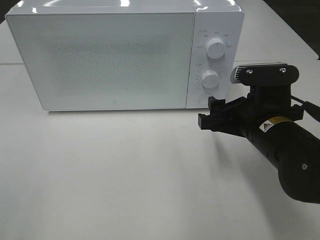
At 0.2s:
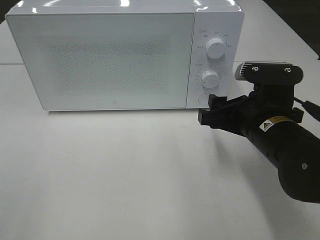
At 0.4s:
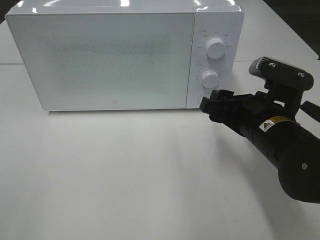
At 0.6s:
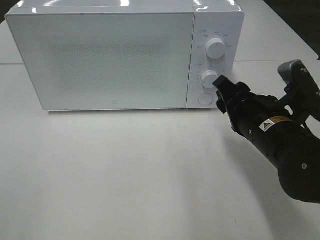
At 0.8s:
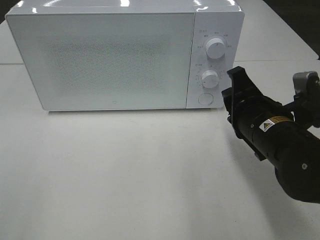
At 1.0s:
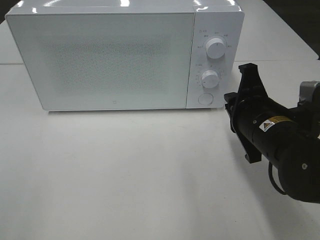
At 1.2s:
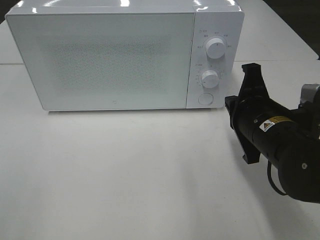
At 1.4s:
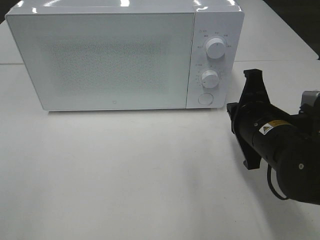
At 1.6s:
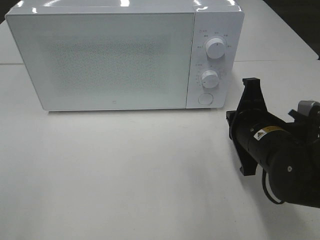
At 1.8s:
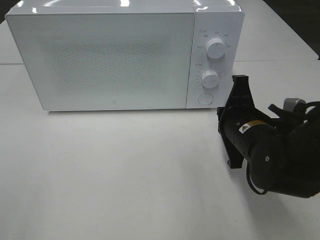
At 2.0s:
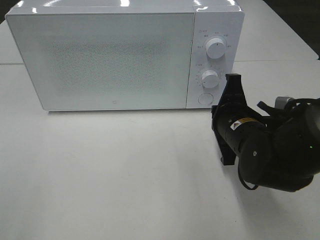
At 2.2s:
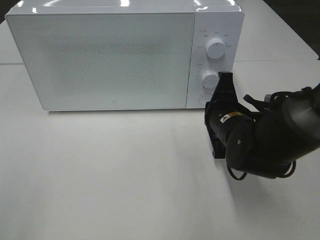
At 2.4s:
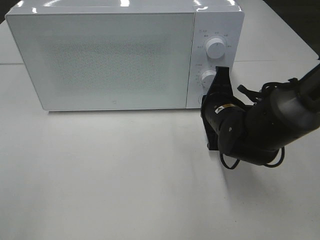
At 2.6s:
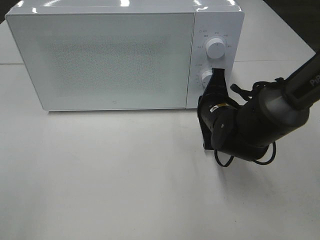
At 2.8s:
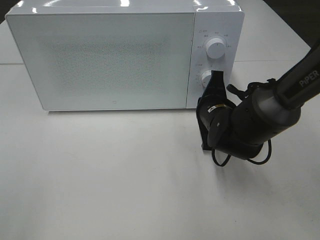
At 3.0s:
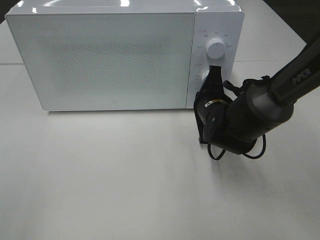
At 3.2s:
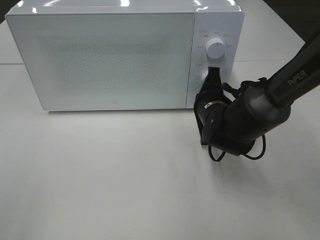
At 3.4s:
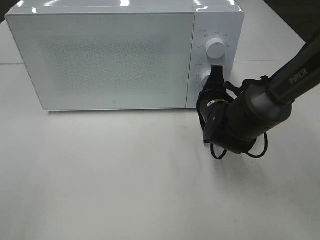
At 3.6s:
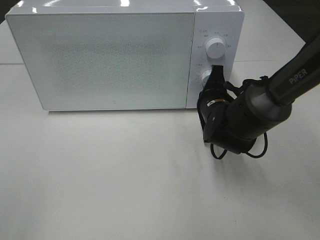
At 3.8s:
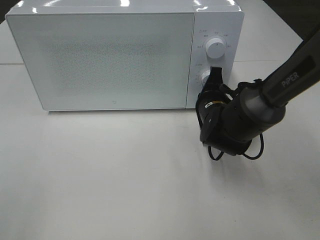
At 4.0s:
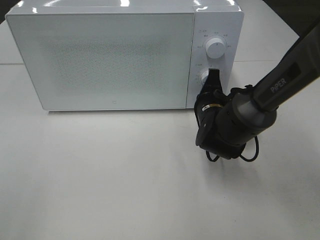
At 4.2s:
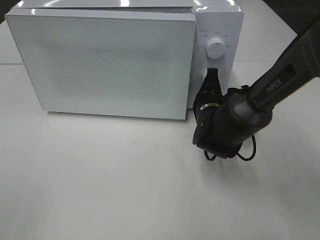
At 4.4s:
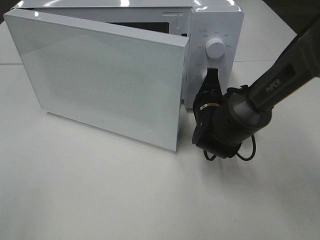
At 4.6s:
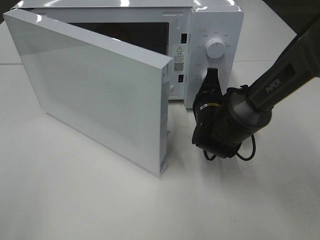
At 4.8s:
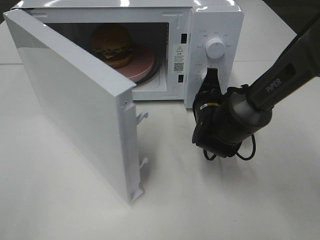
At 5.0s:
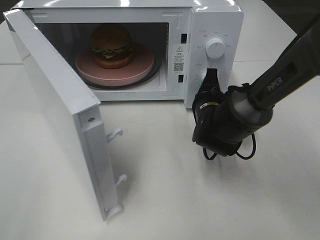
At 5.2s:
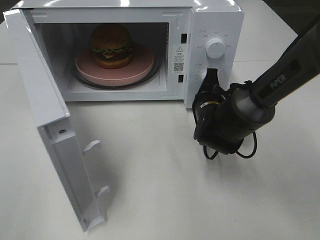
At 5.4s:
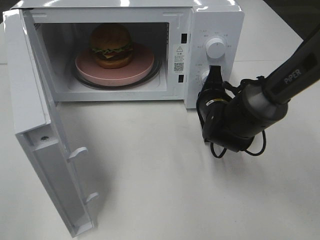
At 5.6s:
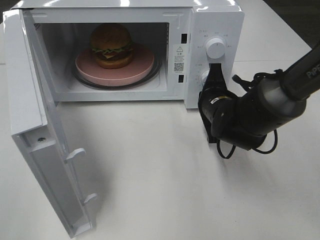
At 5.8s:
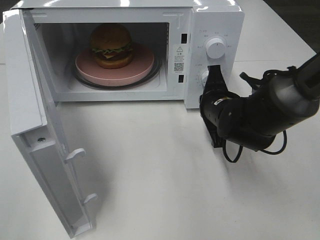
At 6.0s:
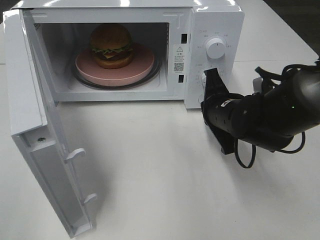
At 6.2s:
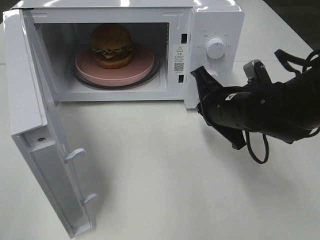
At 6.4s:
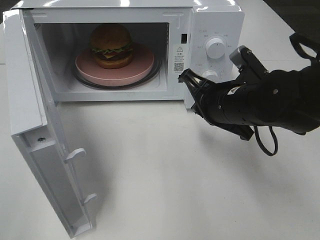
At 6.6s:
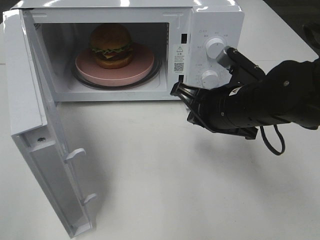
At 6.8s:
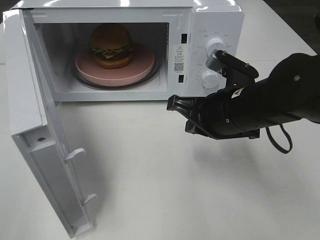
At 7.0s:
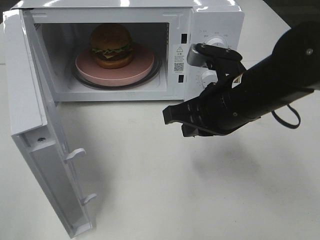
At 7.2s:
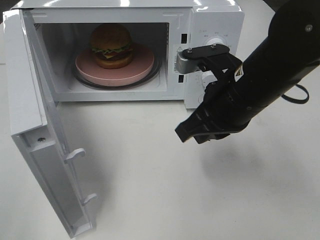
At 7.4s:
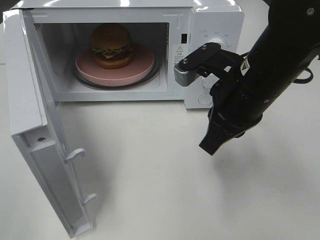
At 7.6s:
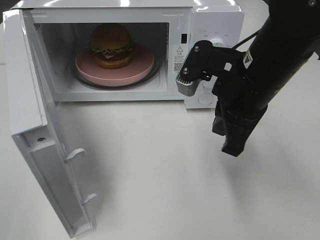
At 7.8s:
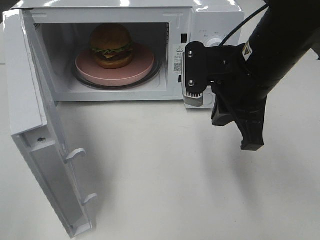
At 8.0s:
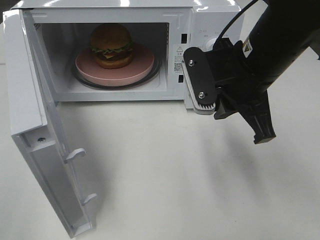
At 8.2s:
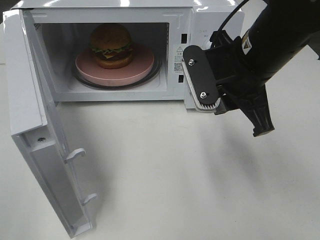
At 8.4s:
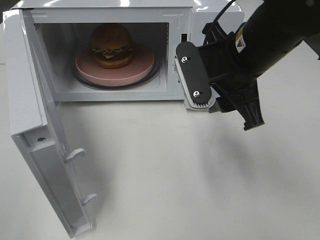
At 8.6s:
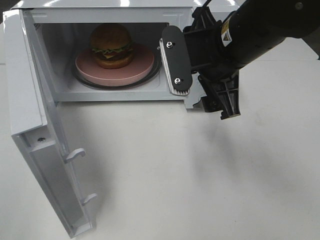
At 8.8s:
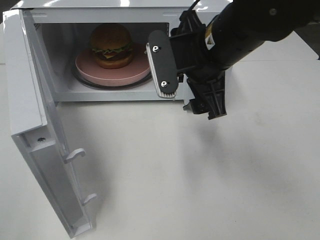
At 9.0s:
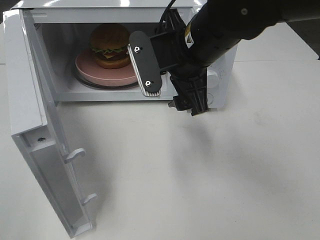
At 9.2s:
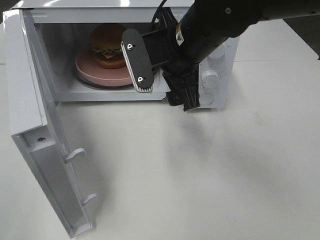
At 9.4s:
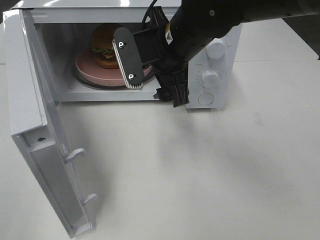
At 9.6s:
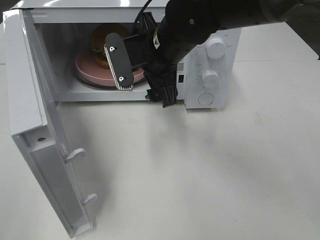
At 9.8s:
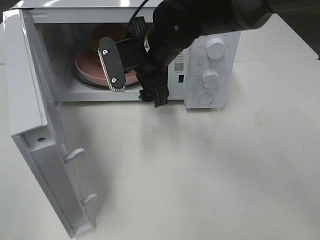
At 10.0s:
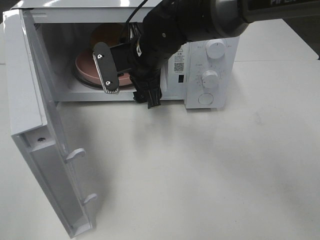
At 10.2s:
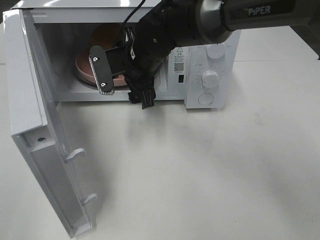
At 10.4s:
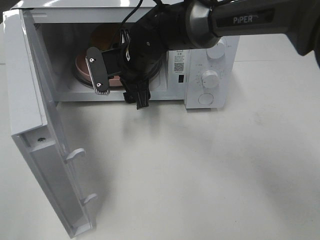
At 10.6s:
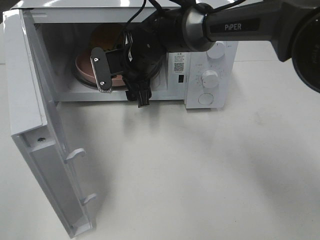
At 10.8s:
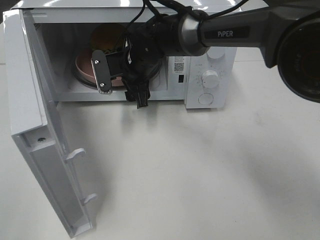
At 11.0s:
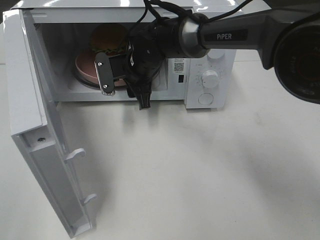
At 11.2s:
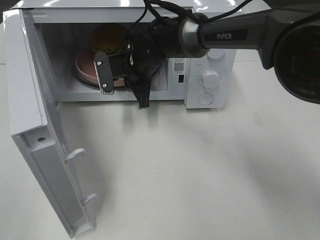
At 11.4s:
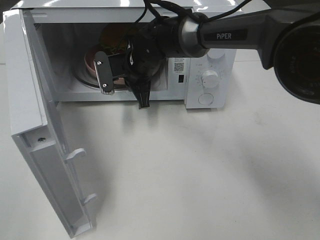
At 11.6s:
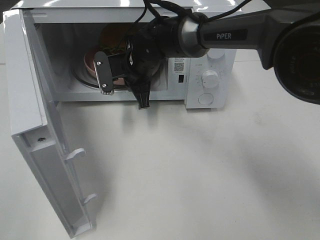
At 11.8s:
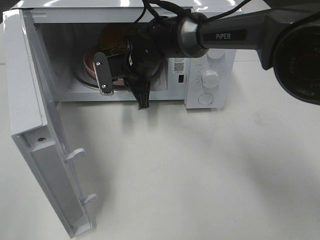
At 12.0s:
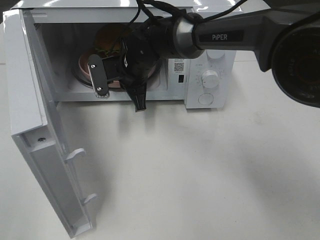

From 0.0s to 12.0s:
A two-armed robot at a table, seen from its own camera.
Task of the whole recording: Heat the burger.
Step, from 0.0s to 5.6s: Right hand: press the switch.
Step, from 5.8s to 11.2s: Right hand: grab the plate with the hamburger.
From 0.0s to 1.6s: The right gripper closes up.
From 1.6s to 3.0s: The right gripper heads forward, covering roughly 10 cm.
From 3.0s to 4.4s: The grippers stay close to where they were, moving slightly.
From 4.4s to 6.0s: The right gripper moves roughly 5 cm.
From 6.0s to 7.6s: The right gripper is displaced upward by some 10 cm.
From 7.6s to 9.0s: The right gripper moves to the left, roughly 5 cm, and opens its fingers.
From 9.0s to 10.4s: The right gripper travels forward, to the left and downward by roughly 15 cm.
From 10.4s to 12.0s: The right gripper closes up.

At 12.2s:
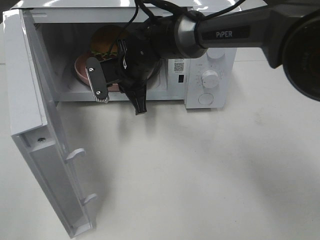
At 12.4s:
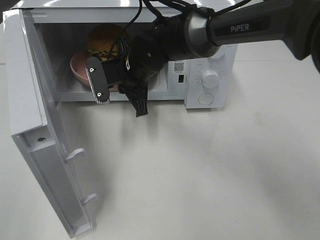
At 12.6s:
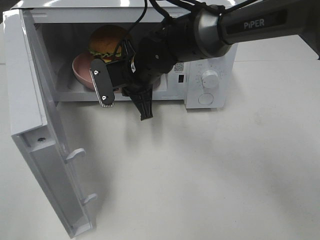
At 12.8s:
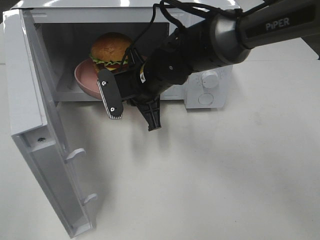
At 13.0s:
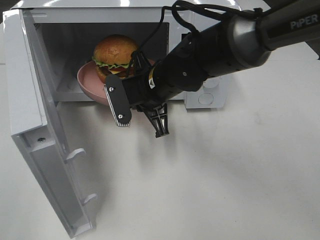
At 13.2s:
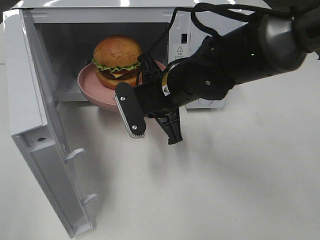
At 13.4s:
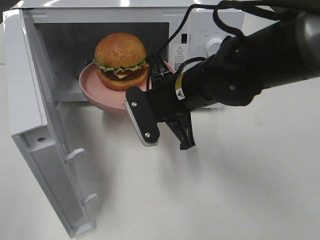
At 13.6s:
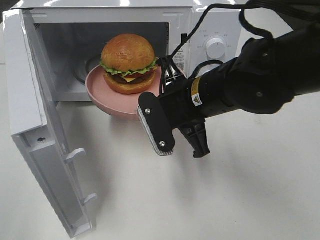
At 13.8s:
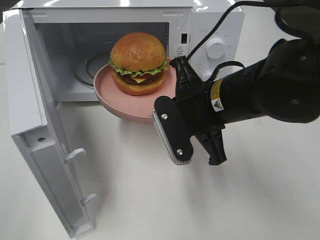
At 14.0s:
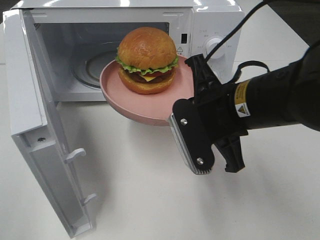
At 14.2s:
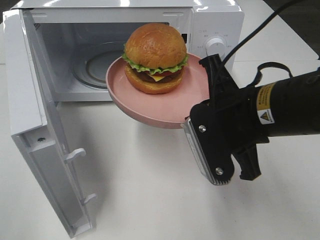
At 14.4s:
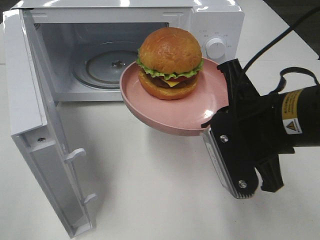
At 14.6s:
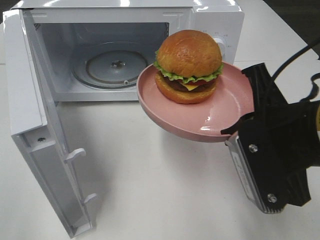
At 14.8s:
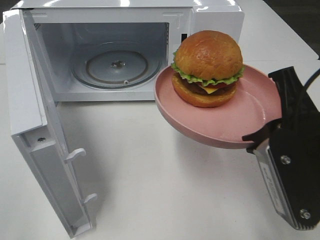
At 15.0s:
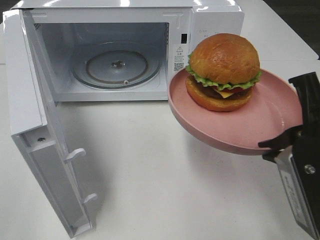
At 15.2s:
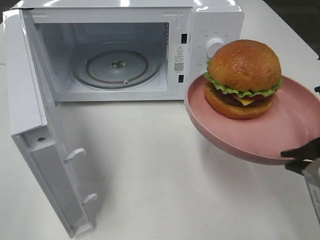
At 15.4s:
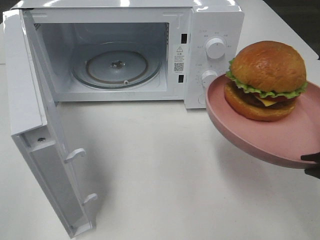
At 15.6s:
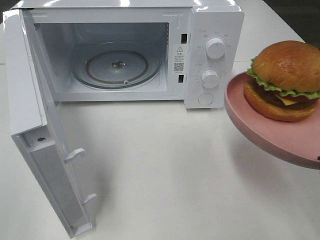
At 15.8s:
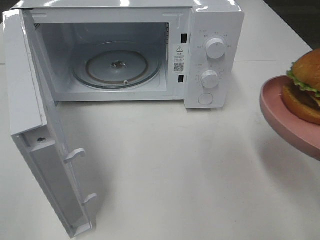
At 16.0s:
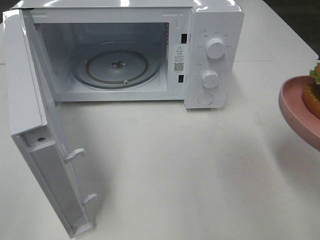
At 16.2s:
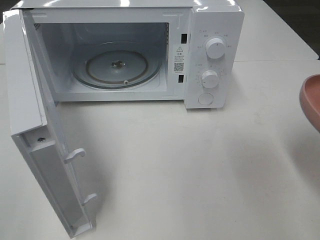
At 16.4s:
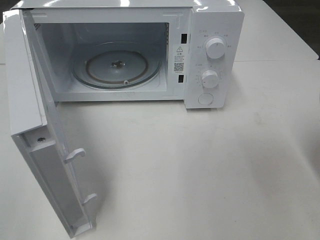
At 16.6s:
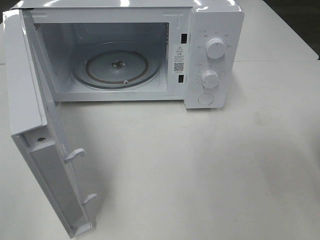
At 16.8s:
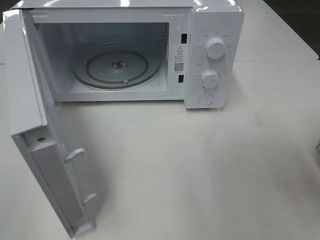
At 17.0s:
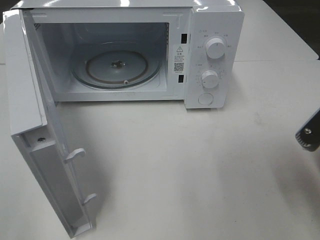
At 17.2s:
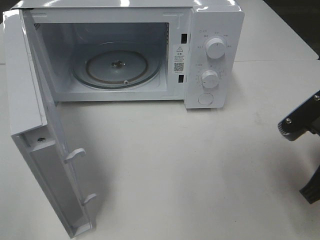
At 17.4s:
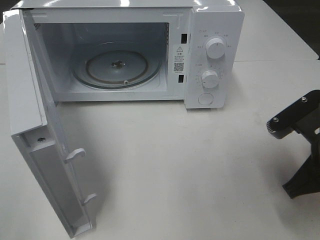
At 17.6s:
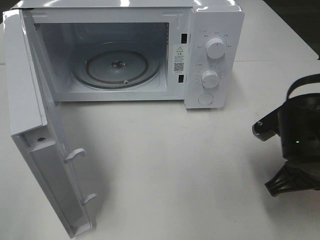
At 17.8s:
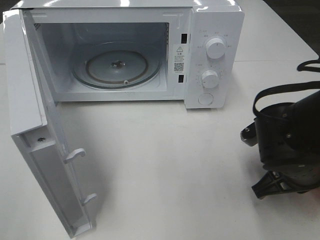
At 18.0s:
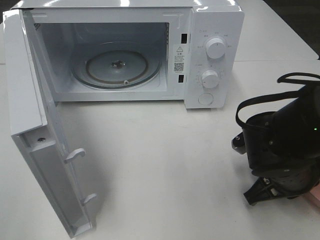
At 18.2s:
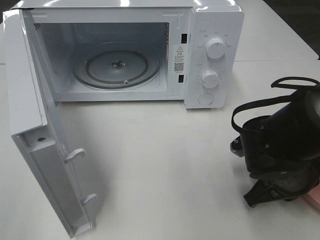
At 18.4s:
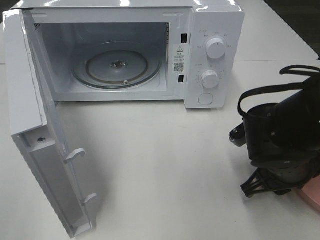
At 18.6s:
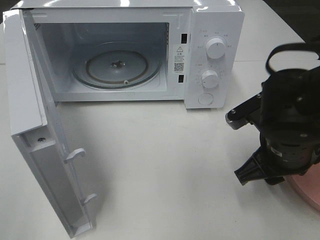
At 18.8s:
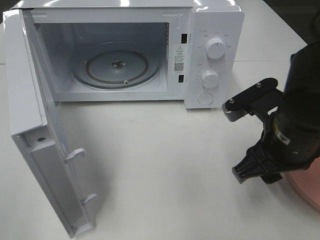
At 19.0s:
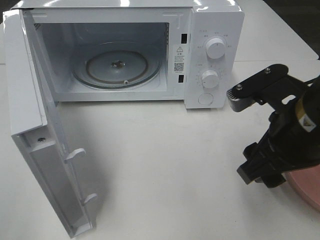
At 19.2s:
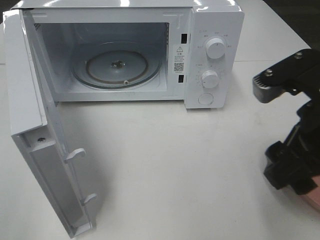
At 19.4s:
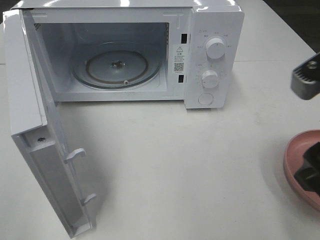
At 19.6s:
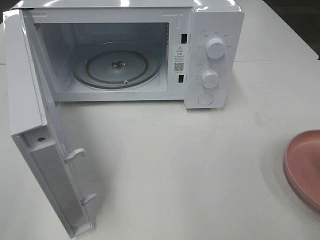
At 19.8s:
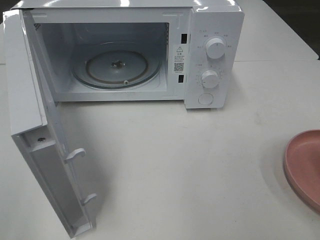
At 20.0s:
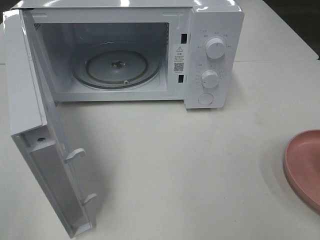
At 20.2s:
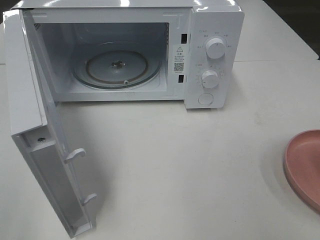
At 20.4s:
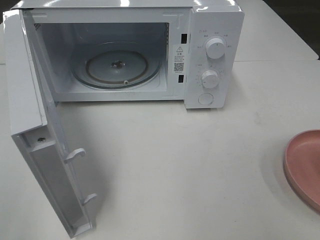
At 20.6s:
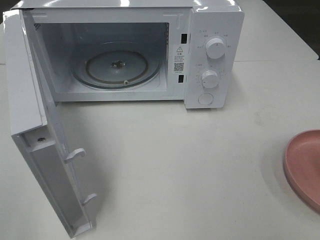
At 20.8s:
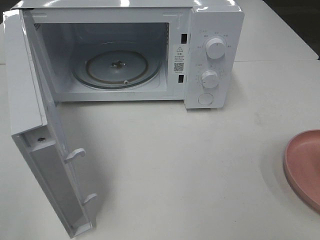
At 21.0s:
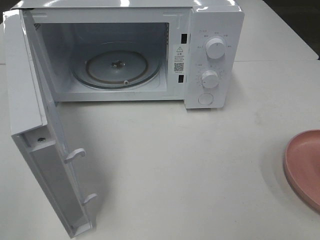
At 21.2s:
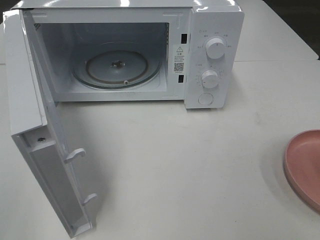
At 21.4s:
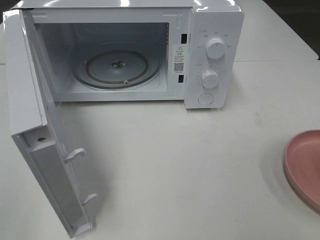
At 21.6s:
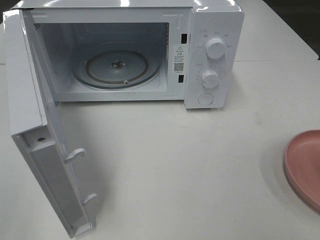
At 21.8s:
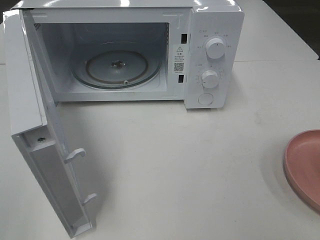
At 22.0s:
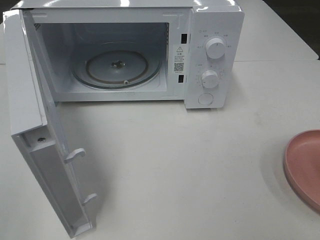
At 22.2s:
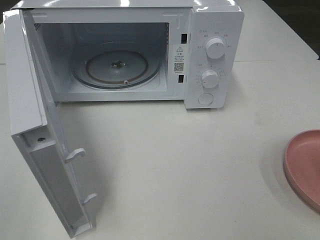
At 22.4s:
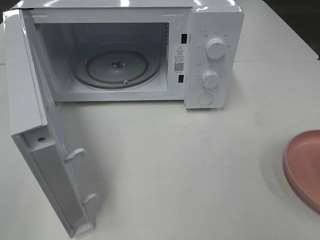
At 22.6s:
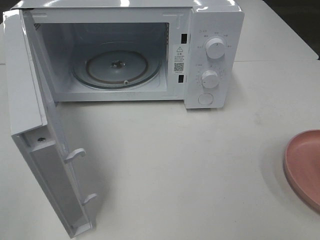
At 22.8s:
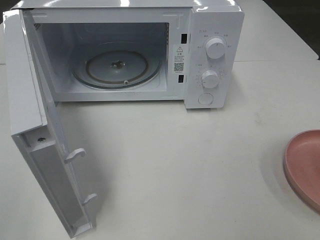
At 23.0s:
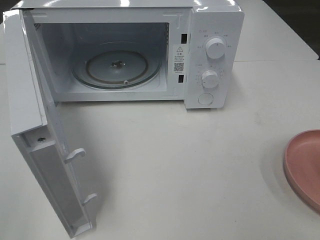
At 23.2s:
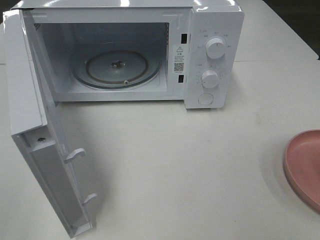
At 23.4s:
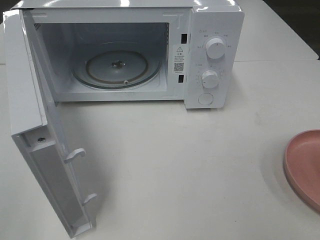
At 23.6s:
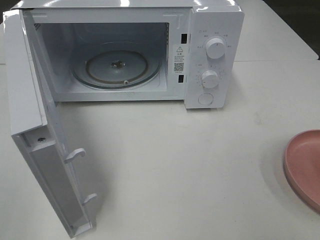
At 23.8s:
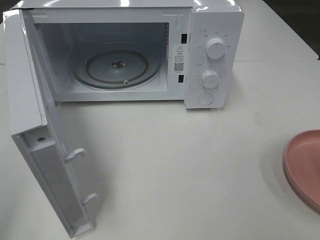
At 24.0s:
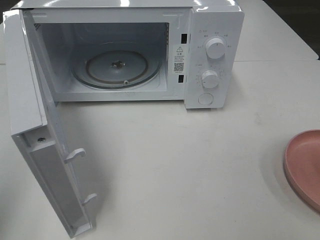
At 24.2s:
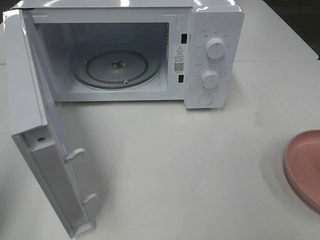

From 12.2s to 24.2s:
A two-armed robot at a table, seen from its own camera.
Task of the whole recording: Heat the burger.
Step, from 12.2s to 18.2s: Right hand: place the plate on the table.
From 12.2s to 13.8s: The right gripper is displaced backward and to the right by some 20 cm.
From 13.8s to 15.2s: The right gripper heads backward and to the right, covering roughly 20 cm.
From 16.6s to 18.2s: The right gripper heads downward, forward and to the left, covering some 20 cm.
From 18.2s to 19.8s: The right gripper travels upward and backward by about 25 cm, and opens up.
From 21.2s to 22.6s: Both grippers stay about where they are.
From 22.6s to 24.2s: The left gripper travels forward by about 10 cm, and closes.
